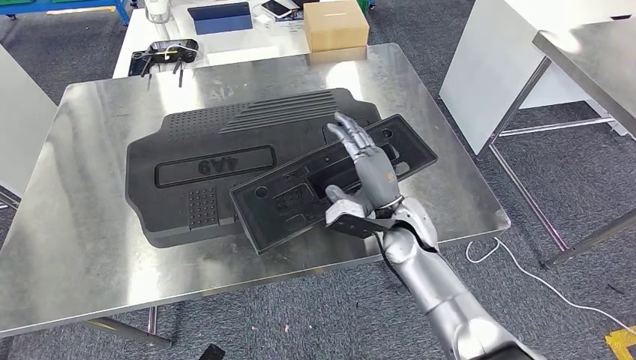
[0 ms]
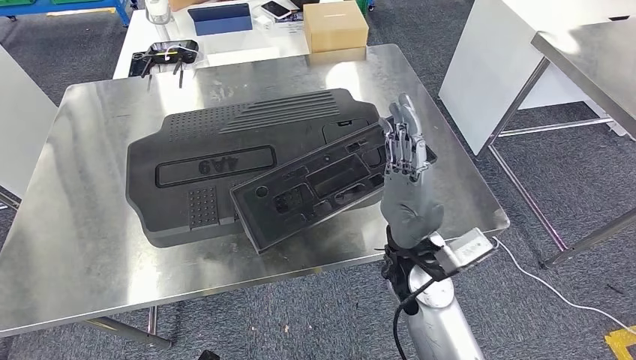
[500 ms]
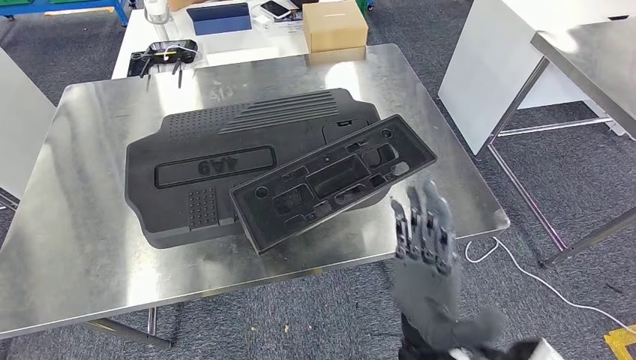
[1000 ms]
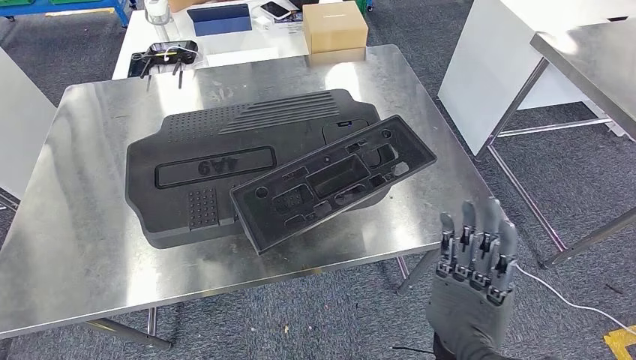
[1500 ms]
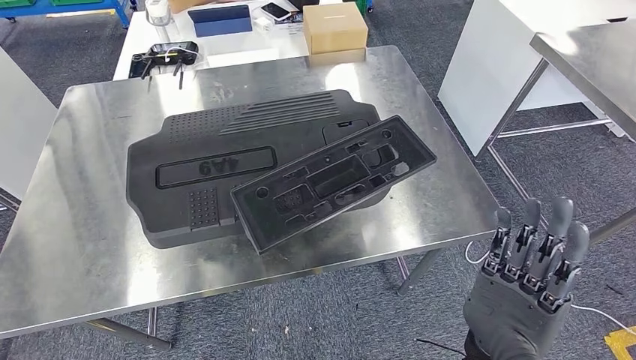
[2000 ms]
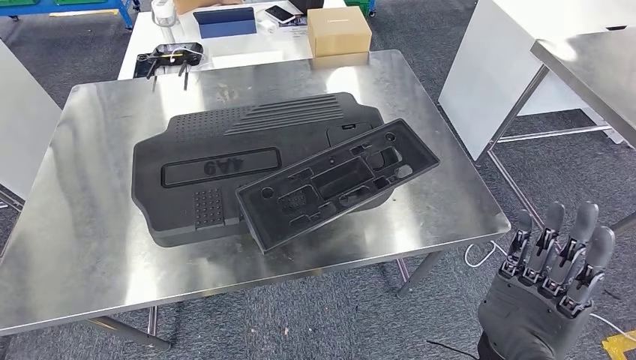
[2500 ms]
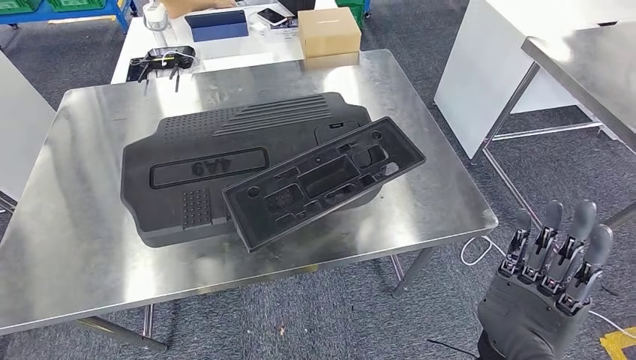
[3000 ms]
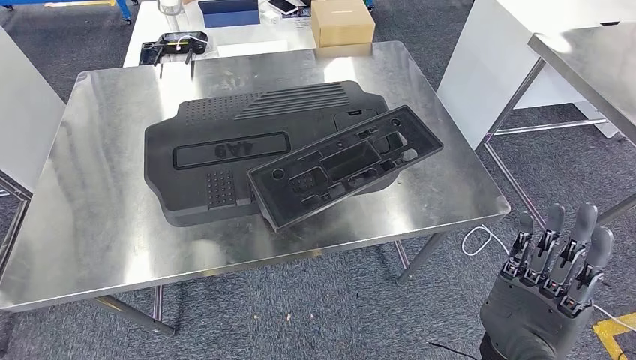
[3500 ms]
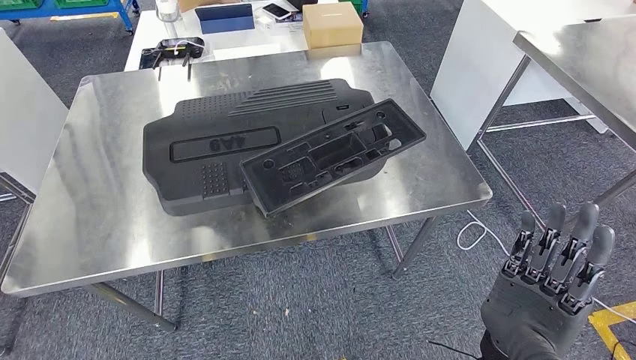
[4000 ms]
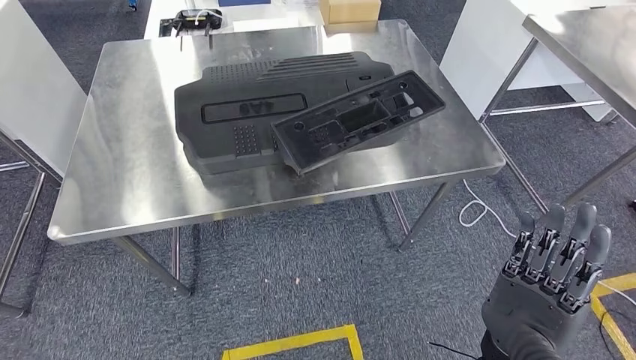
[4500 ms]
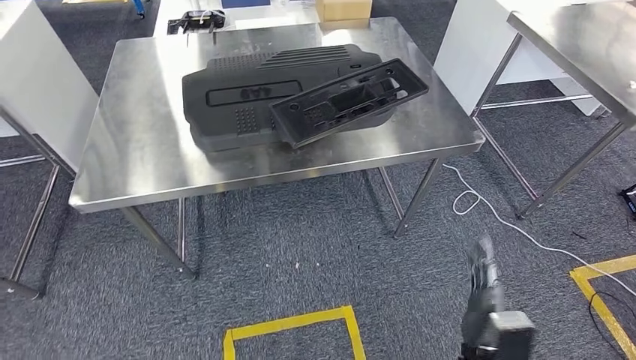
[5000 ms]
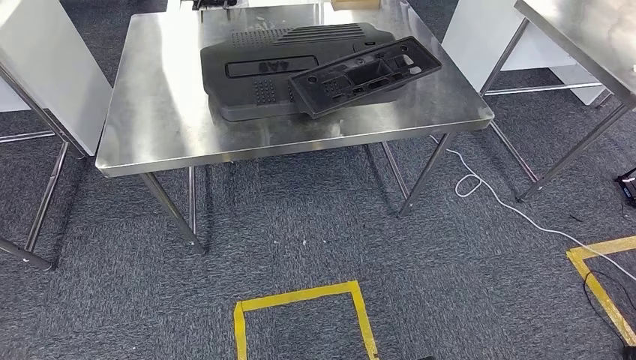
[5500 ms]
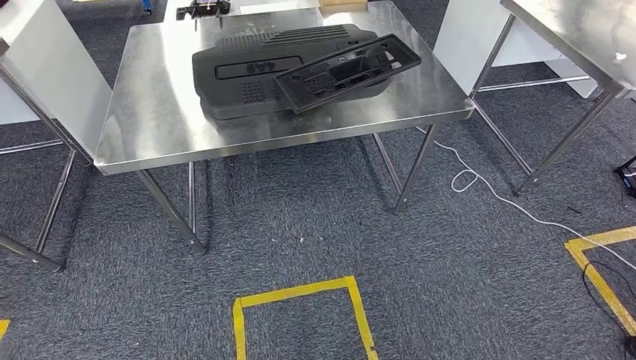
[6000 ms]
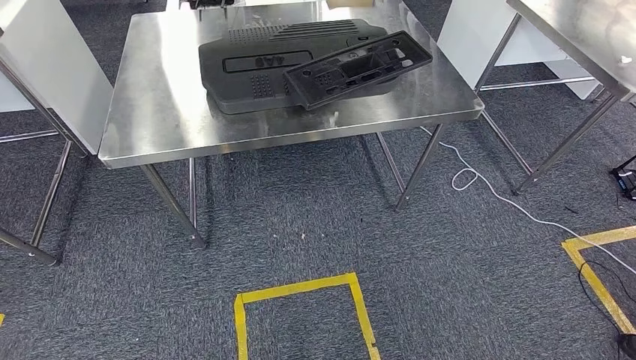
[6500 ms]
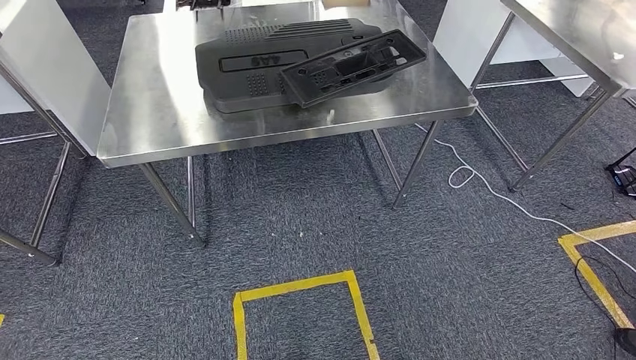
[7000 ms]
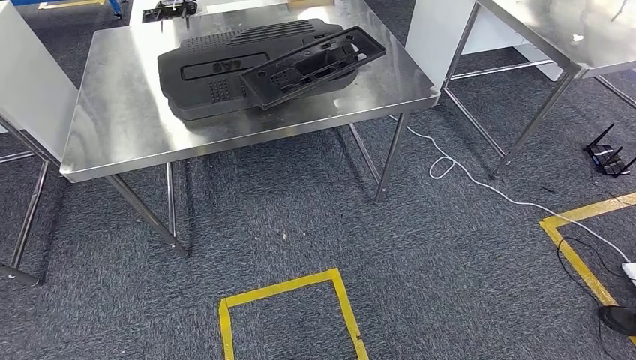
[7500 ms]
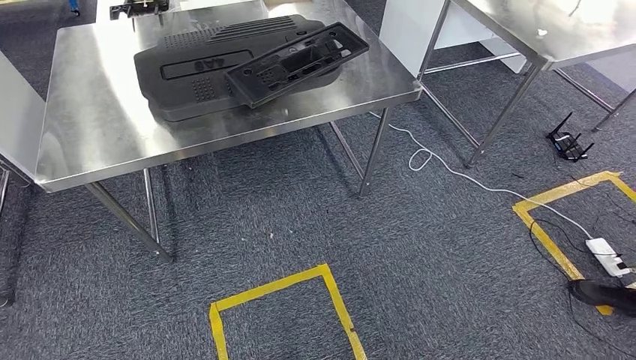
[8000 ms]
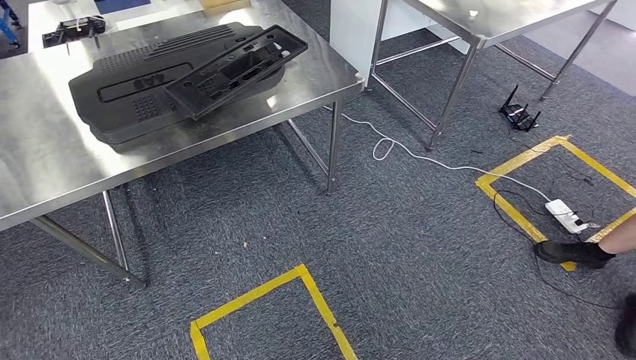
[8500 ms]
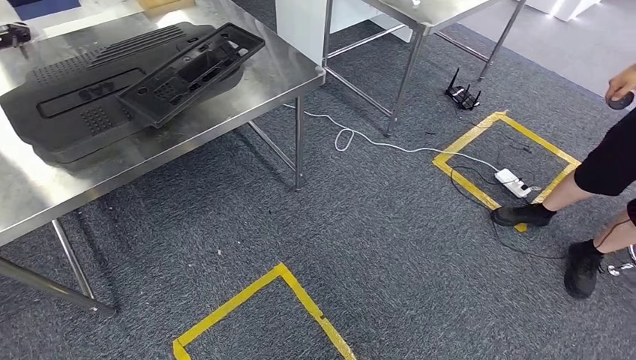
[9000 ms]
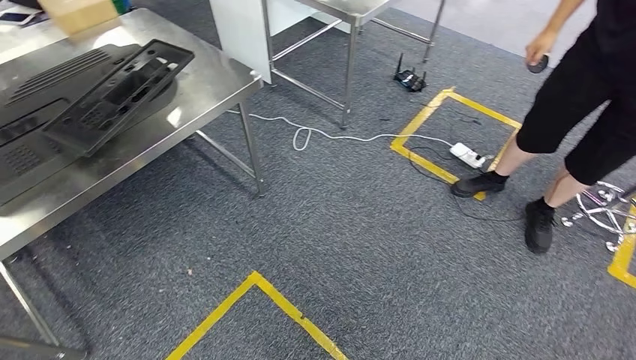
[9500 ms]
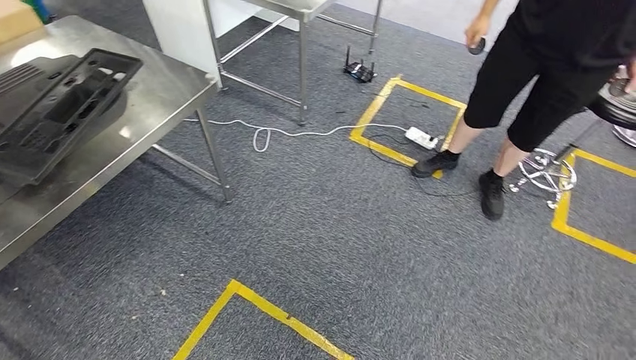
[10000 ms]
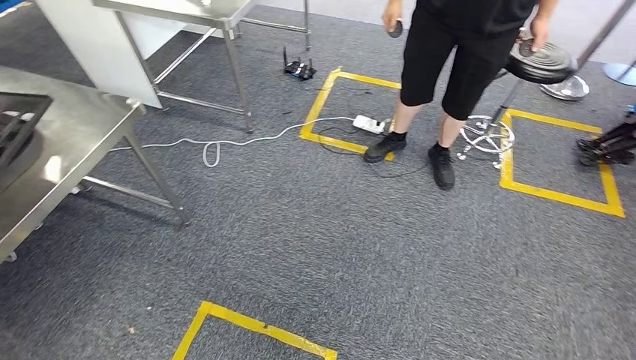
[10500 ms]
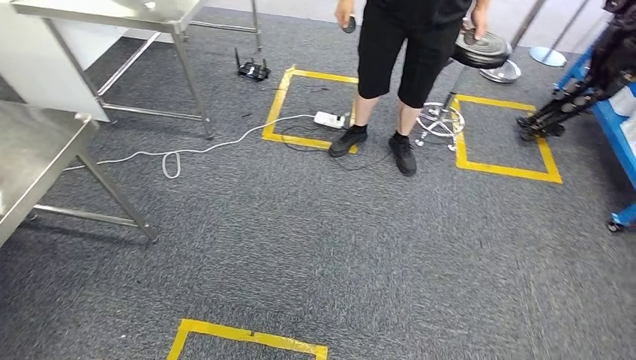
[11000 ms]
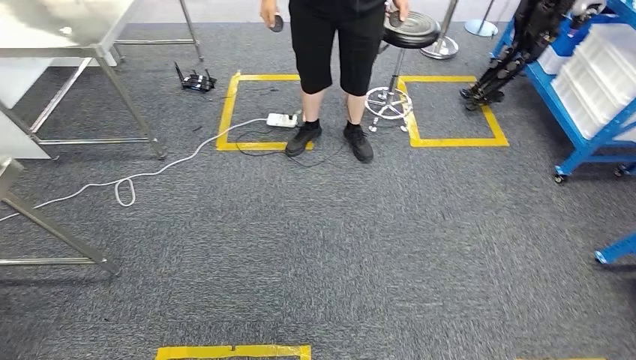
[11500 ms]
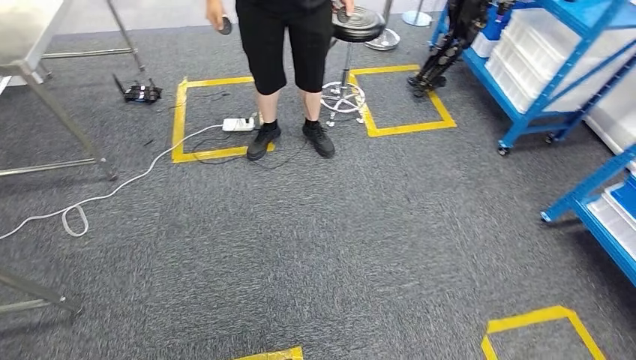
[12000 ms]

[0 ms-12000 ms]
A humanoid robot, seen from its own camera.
Step, 0 ms to 2500 ms: Insert the large material into the corresponding slot on the workbench.
0 ms to 2000 ms: The right hand moves backward, approximately 20 cm. Meanwhile the left hand moves some 5 cm.

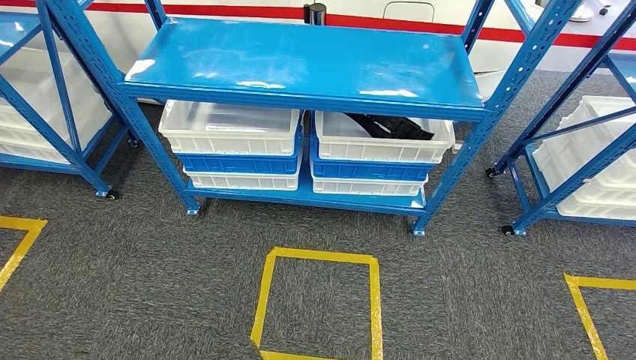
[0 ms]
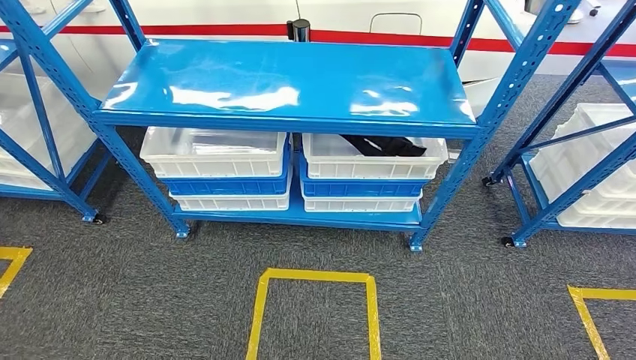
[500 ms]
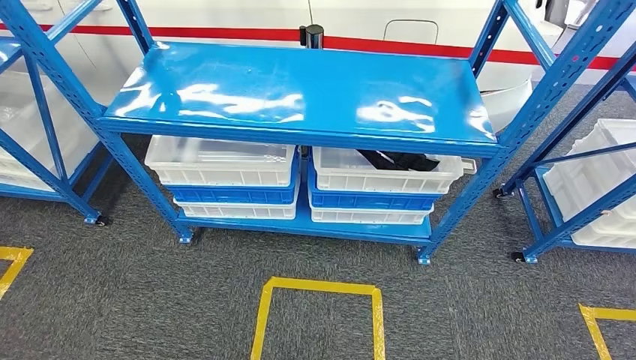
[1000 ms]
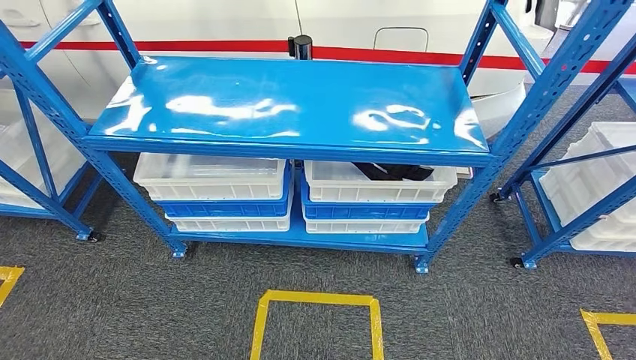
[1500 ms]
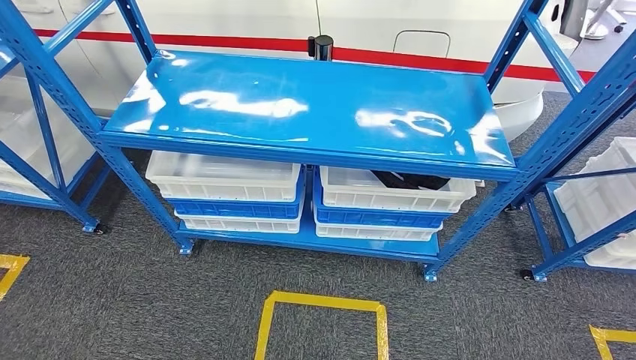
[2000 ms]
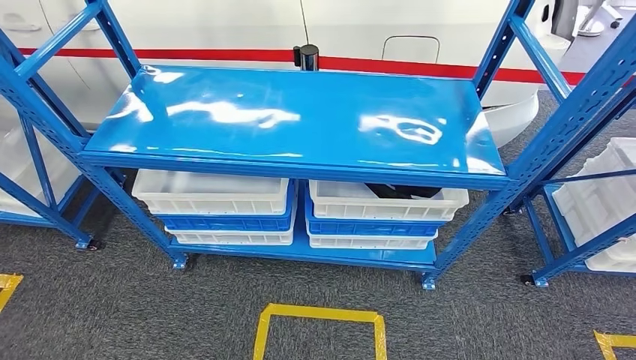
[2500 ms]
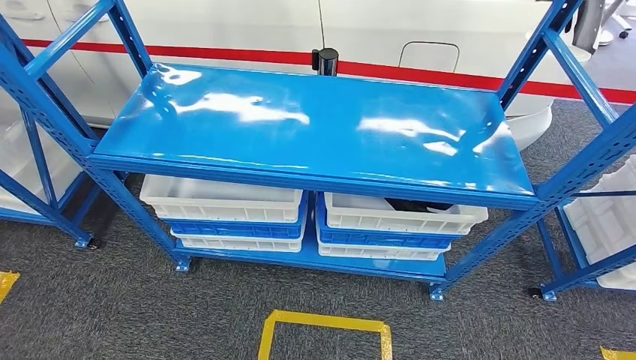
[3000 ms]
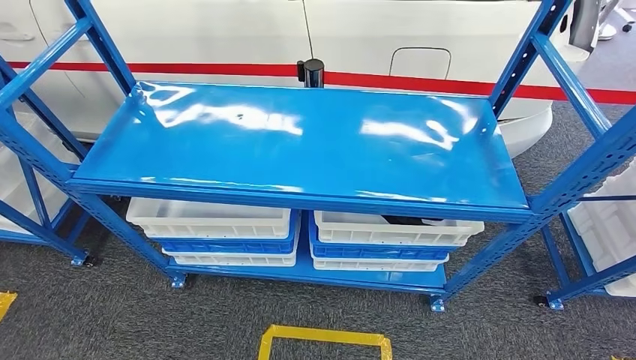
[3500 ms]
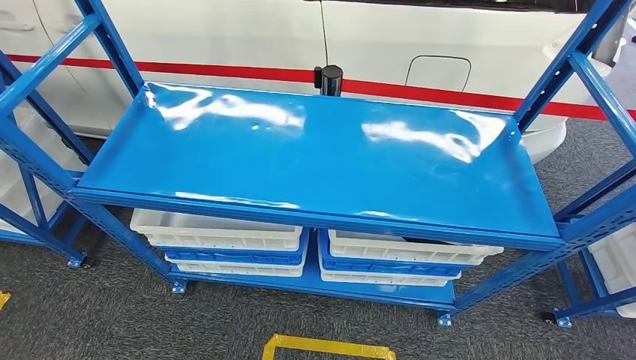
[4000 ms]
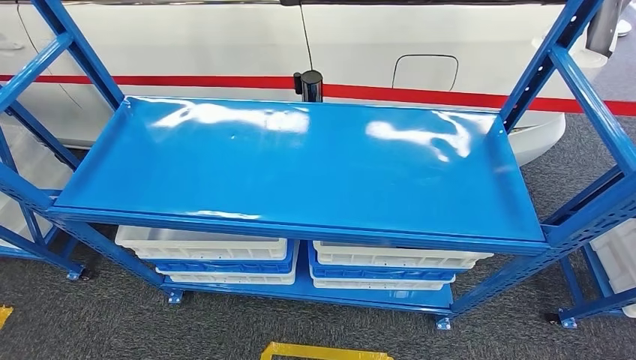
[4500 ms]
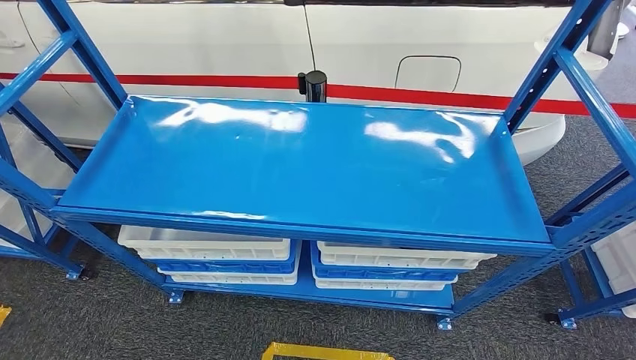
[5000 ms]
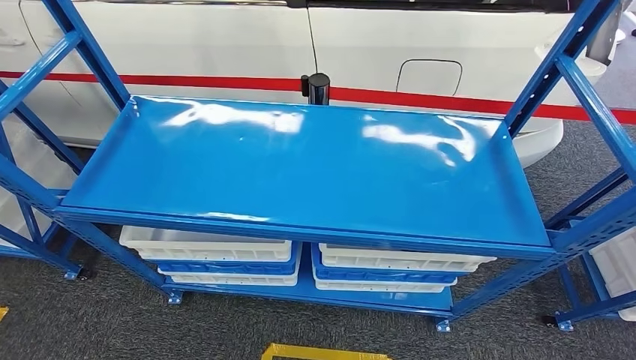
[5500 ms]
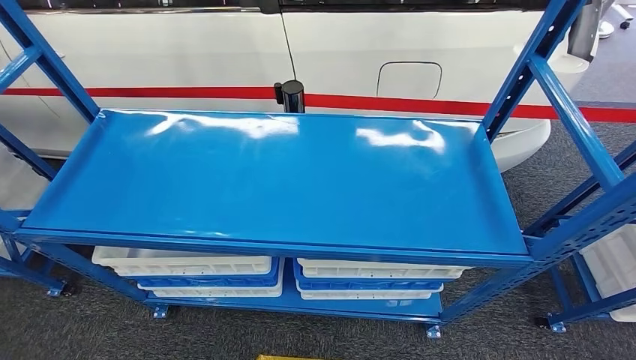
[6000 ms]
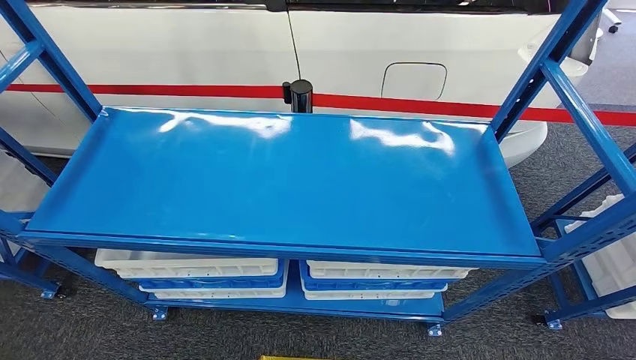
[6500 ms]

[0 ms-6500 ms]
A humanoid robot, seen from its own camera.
Step, 0 ms to 6500 ms: Move to the initial position of the shelf.
